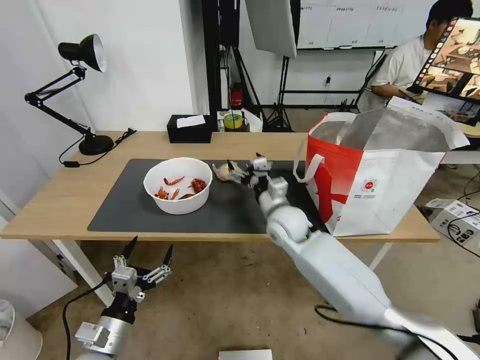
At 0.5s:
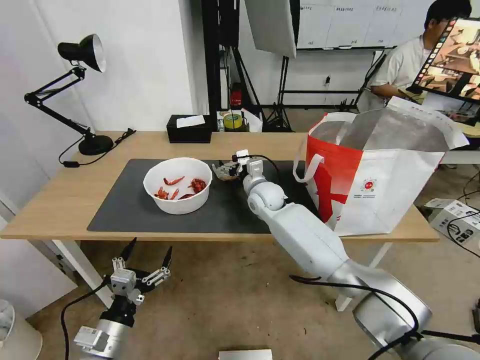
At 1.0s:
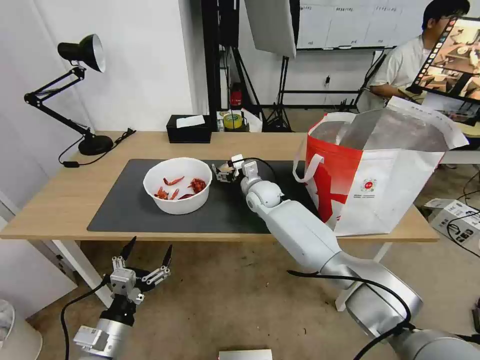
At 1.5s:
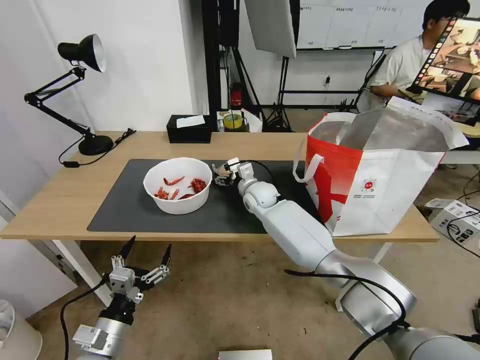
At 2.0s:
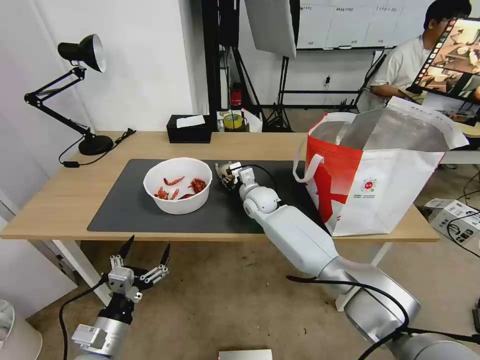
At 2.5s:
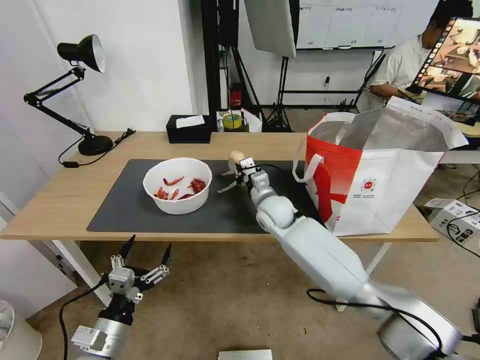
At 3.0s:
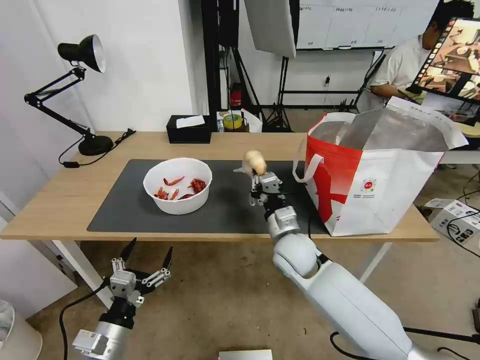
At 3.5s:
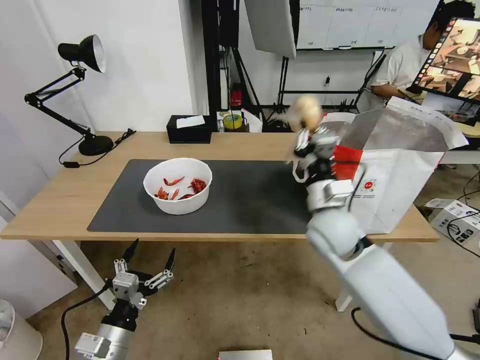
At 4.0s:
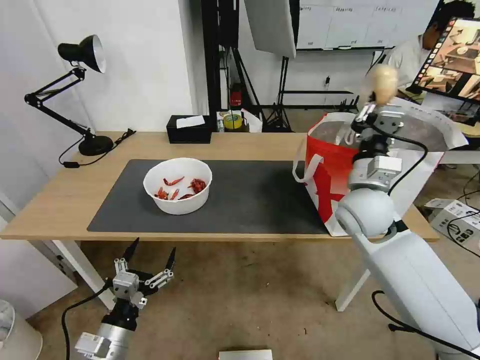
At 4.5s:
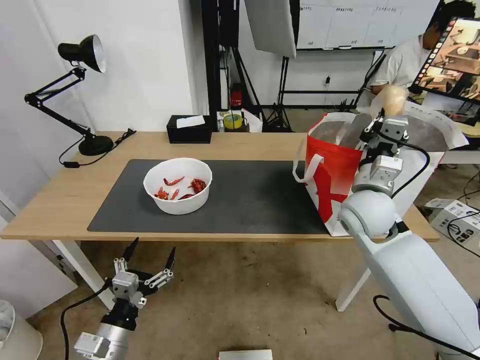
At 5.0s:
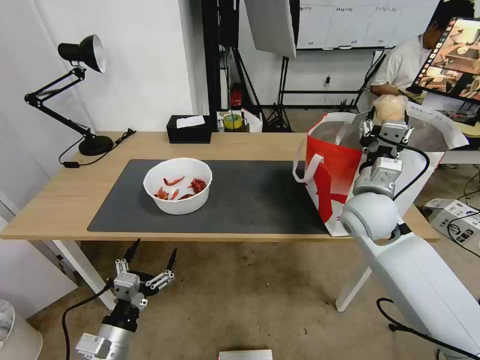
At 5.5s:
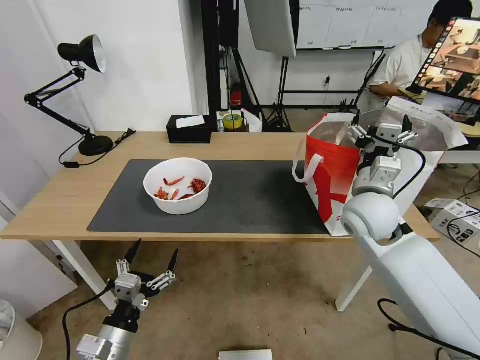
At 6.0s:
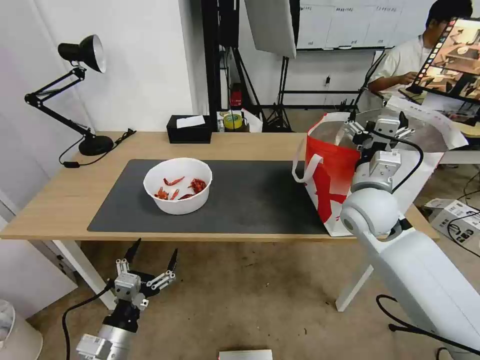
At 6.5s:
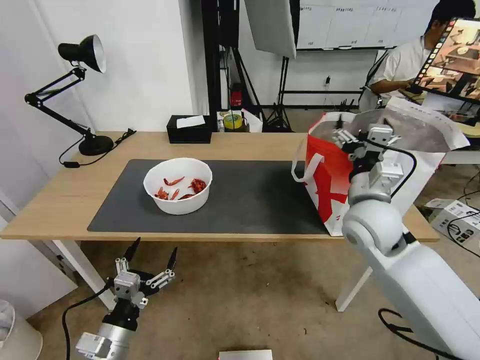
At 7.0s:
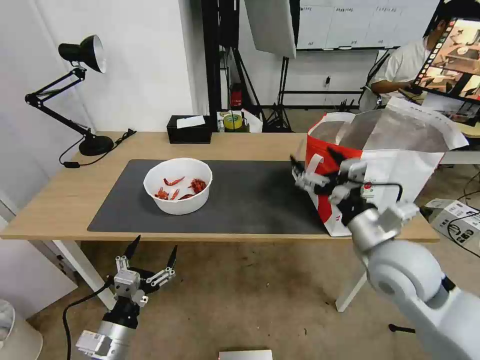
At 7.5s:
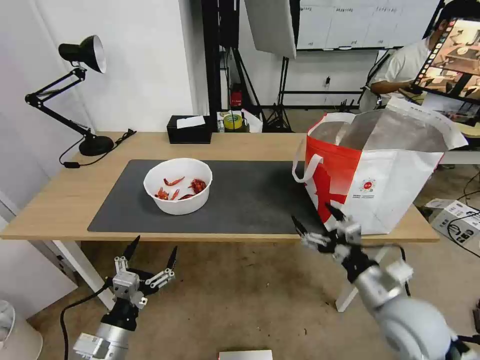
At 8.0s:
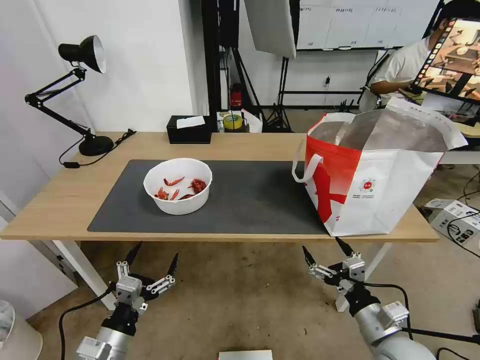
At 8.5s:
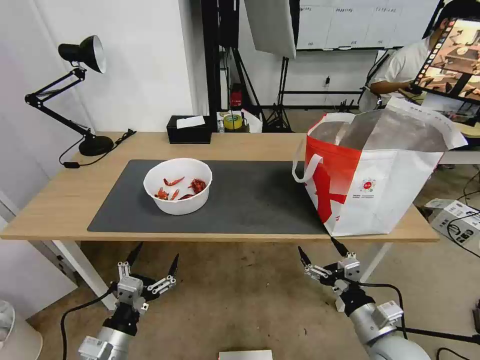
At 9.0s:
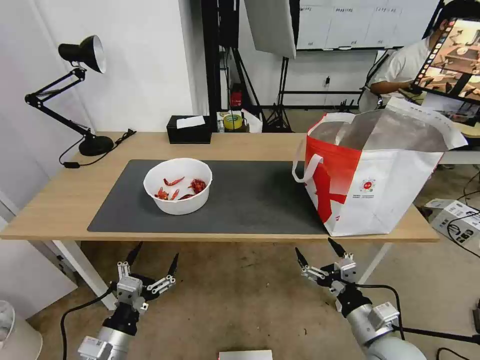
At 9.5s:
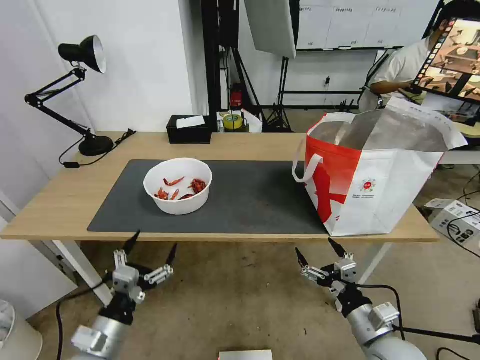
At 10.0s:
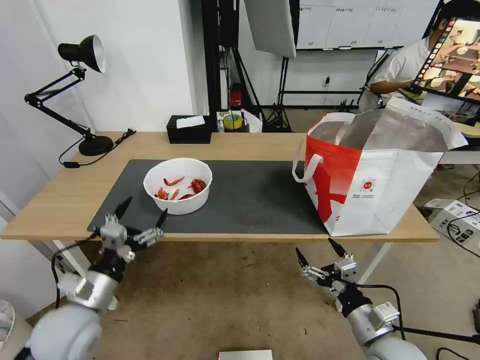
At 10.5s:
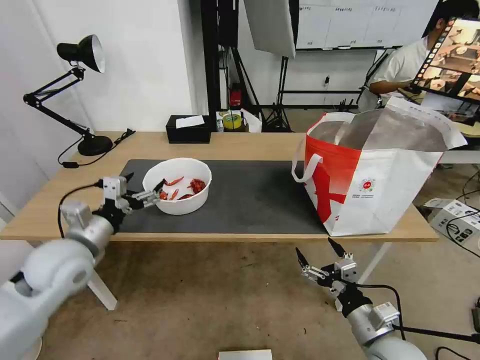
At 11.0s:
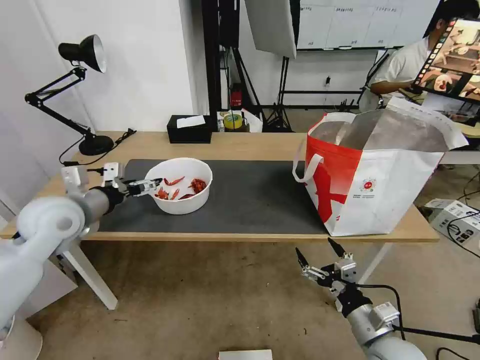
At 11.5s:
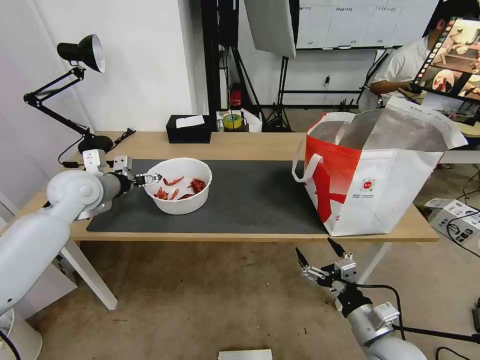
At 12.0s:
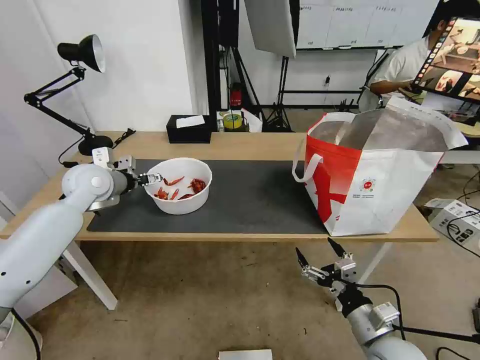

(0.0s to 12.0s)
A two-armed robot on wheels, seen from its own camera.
Task of the whole recording: Pick up the trash from the table and place it into the takeout bag.
0.0s - 2.0s: The right gripper travels forward by some 10 cm, and closes.
2.0s - 4.0s: The right gripper is displaced to the right, backward and upward by some 25 cm, and closes.
4.0s - 6.0s: The right gripper opens its fingers.
6.0s - 8.0s: The right gripper heads backward and downward, covering about 30 cm.
8.0s - 10.0s: The left gripper travels forward and upward by approximately 10 cm.
10.0s - 12.0s: The left gripper heads forward and upward, covering approximately 25 cm.

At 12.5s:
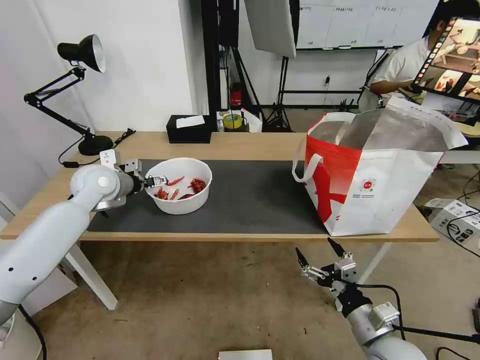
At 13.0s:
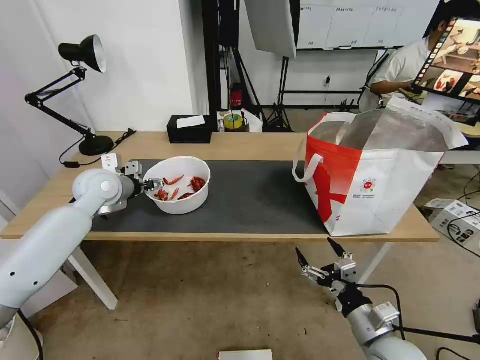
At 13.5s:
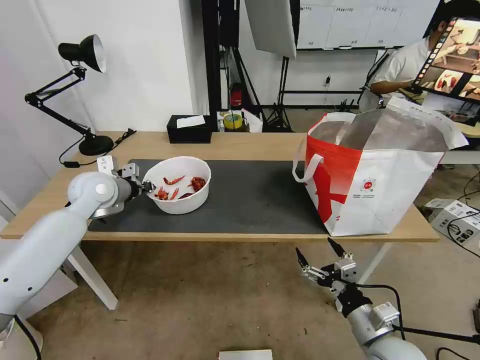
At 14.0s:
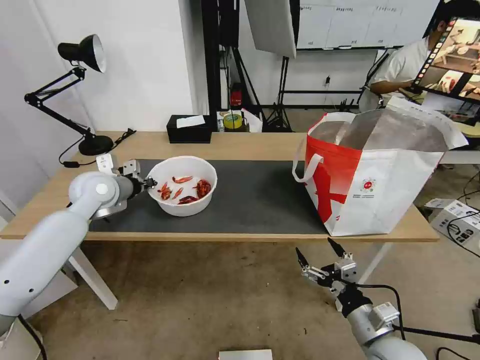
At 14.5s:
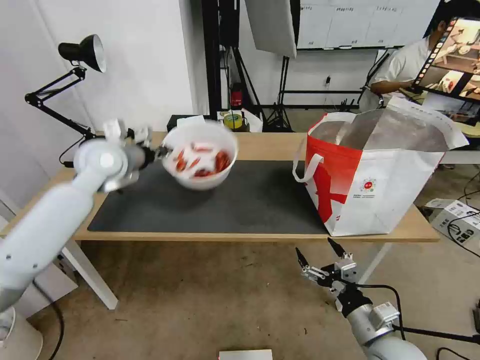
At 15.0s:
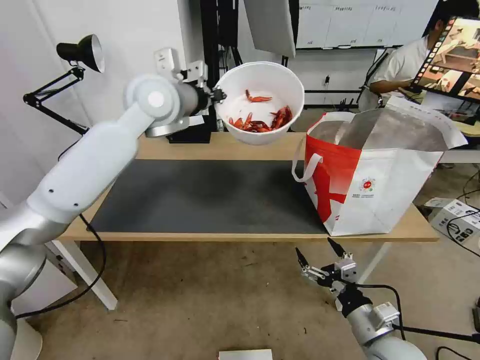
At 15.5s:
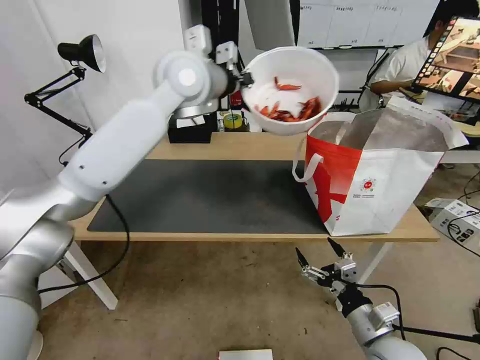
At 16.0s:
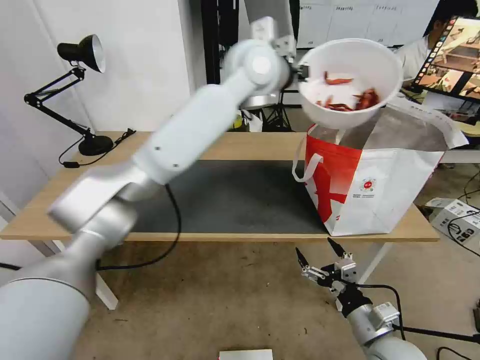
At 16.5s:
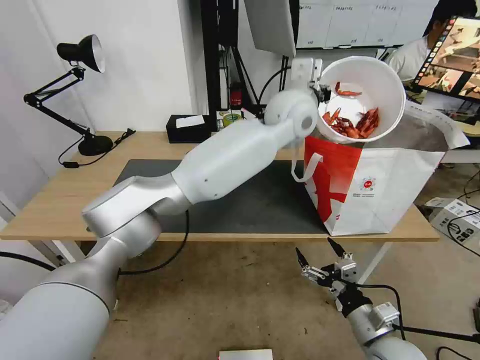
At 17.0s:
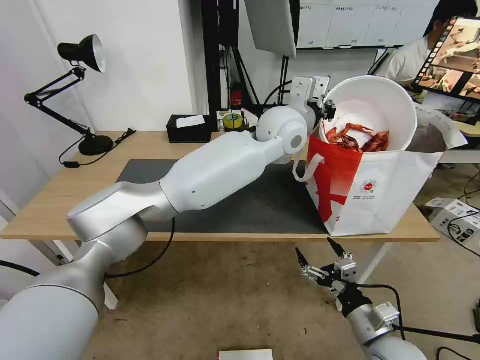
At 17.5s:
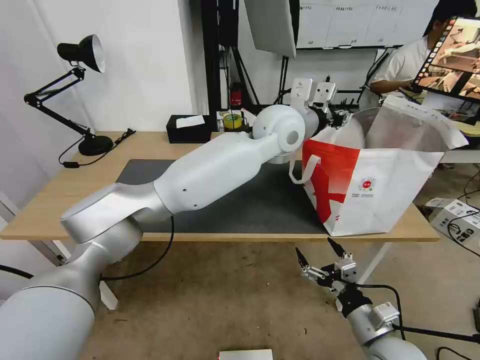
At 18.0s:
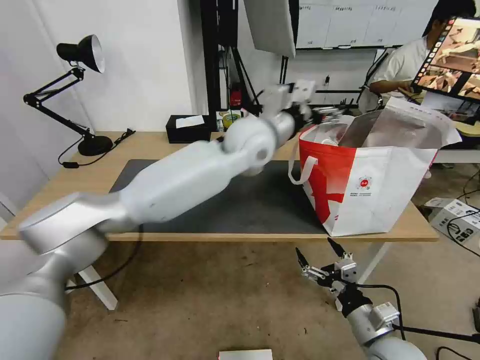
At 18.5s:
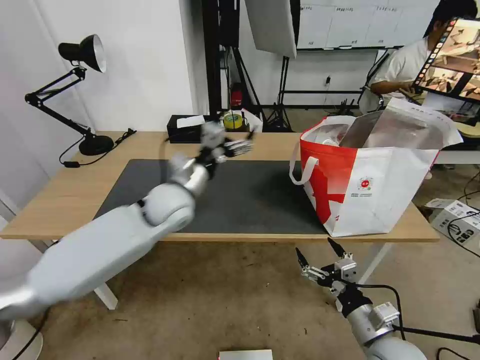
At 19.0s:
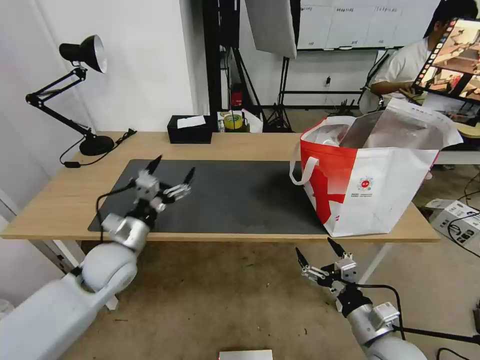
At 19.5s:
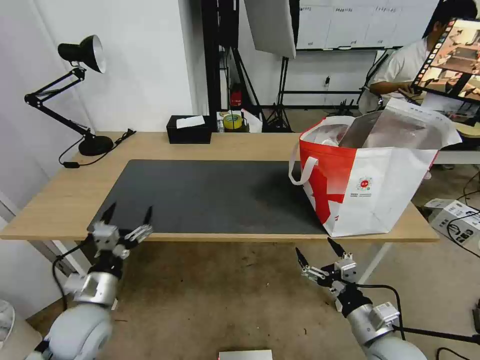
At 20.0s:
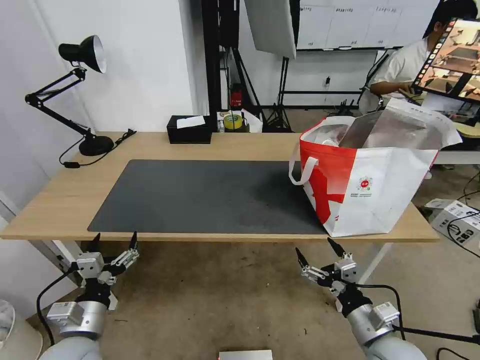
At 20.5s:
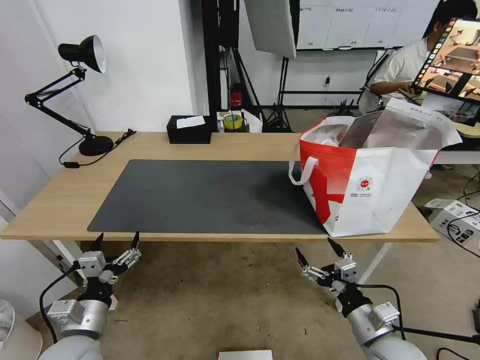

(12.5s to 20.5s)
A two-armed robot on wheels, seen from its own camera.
Task of the whole recording: Pick up the trash from the table and place it into the takeout bag.
12.5s - 14.5s: The left gripper shifts some 5 cm upward, and closes its fingers.
14.5s - 16.5s: The left gripper travels to the right by some 40 cm.
16.5s - 18.5s: The left gripper goes roughly 30 cm to the left and downward, and opens.
18.5s - 20.5s: The left gripper goes about 35 cm backward, to the left and downward.

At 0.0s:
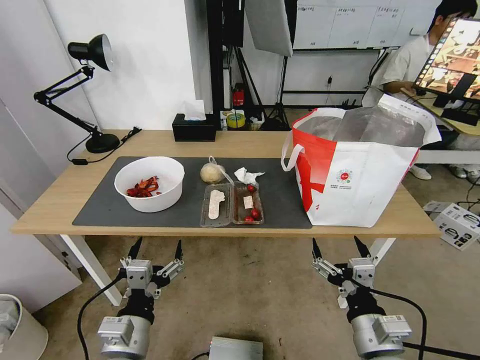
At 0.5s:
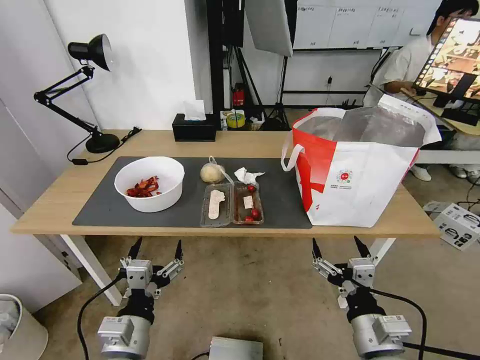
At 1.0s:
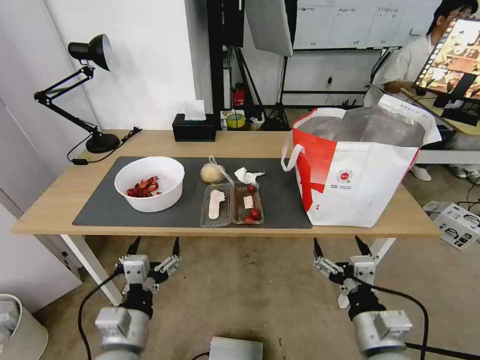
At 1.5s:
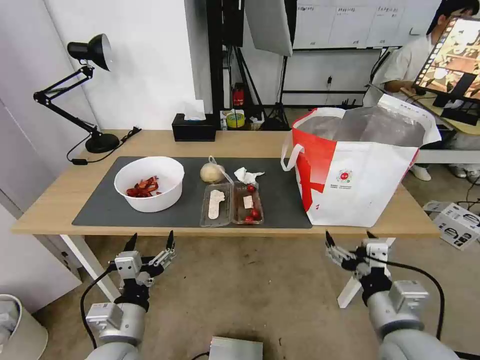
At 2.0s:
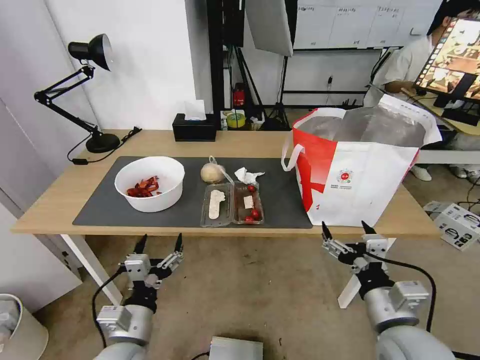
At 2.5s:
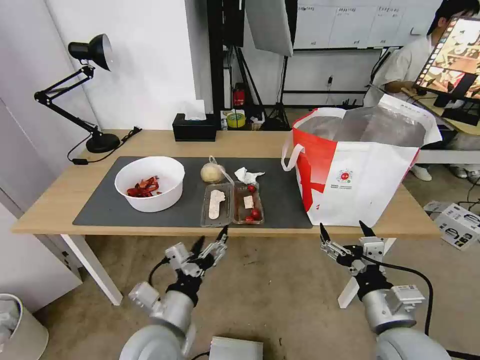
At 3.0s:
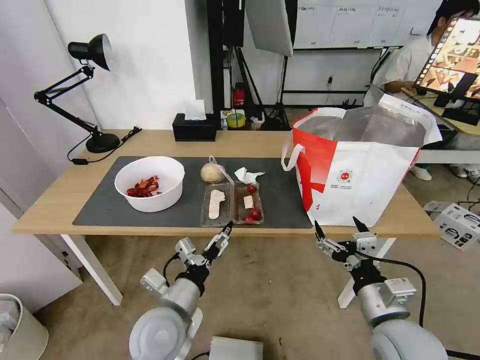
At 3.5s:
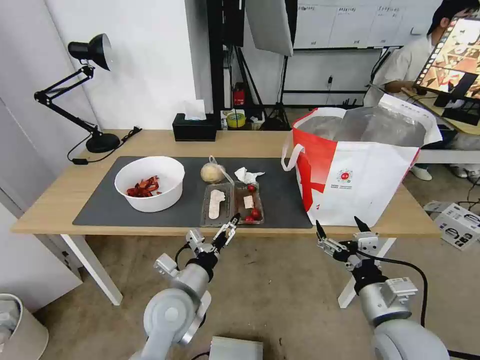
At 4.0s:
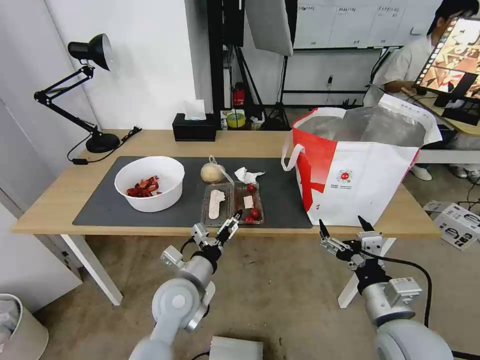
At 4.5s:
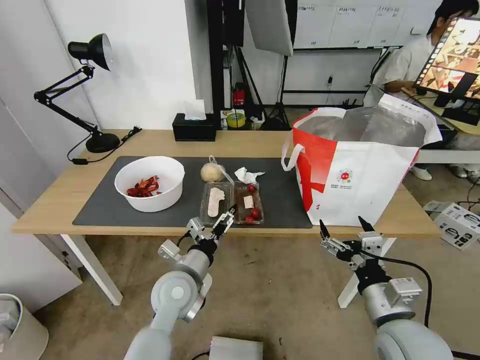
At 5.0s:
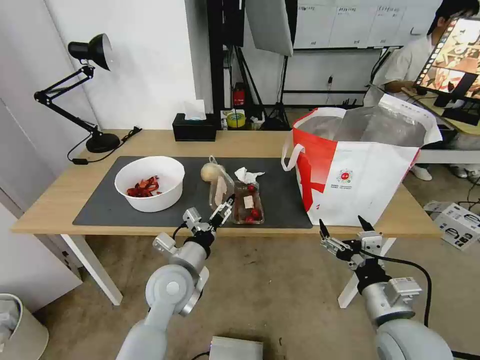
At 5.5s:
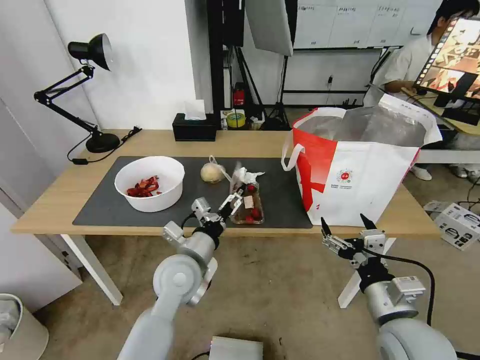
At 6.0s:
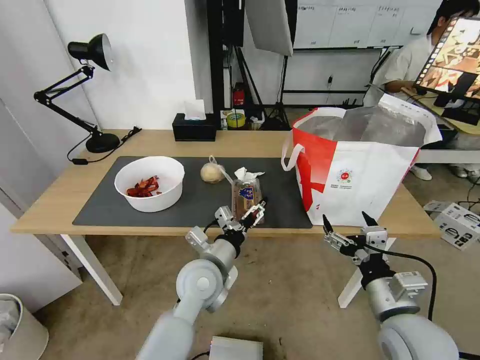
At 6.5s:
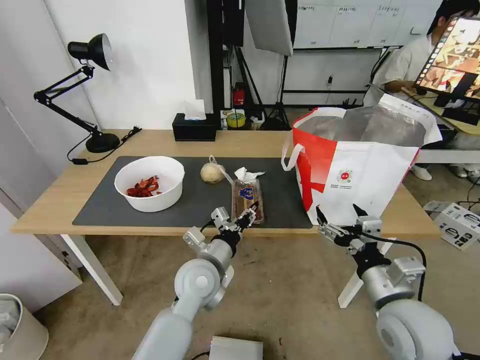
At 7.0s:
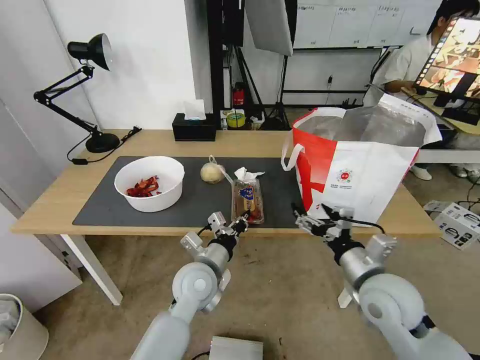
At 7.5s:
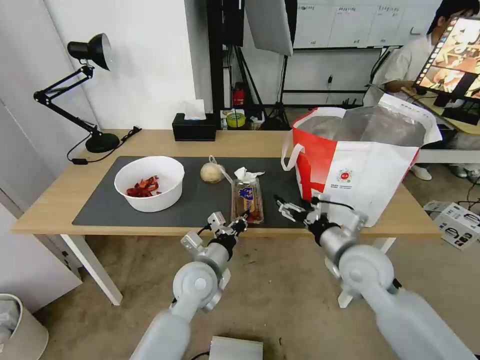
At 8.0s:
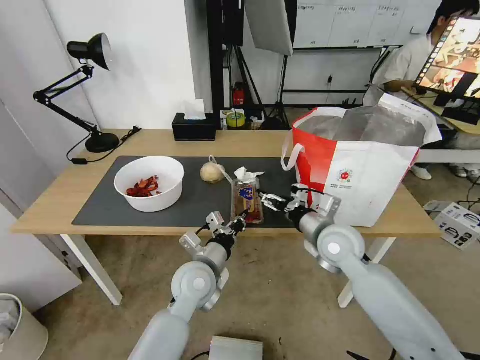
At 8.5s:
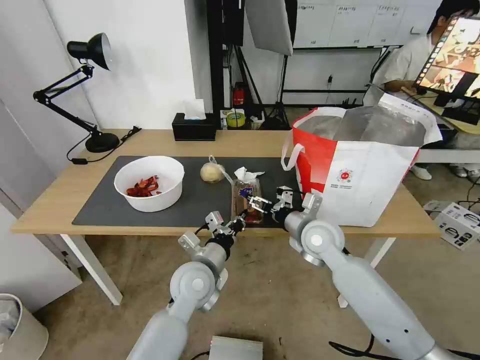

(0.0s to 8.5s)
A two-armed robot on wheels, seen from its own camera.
Task of the whole recording: Pick up the trash from the table and place it into the takeout bag.
2.0s - 4.0s: The left gripper goes some 15 cm forward and to the right.
4.0s - 6.5s: The left gripper changes place by approximately 5 cm, and closes.
6.5s - 8.5s: The right gripper is displaced forward and to the left by about 20 cm.
